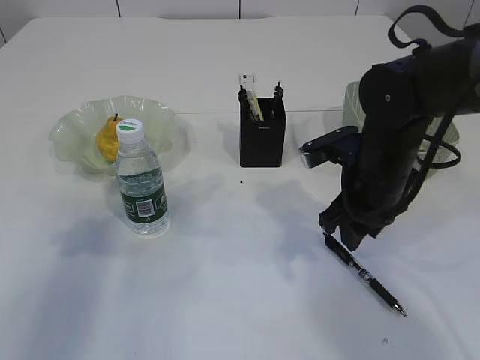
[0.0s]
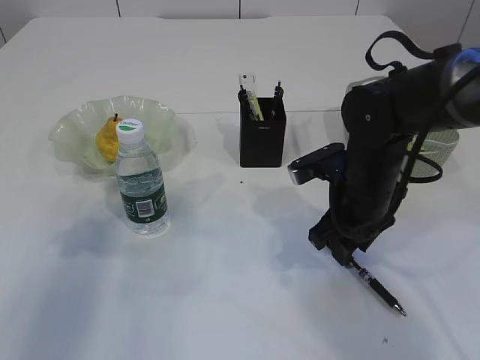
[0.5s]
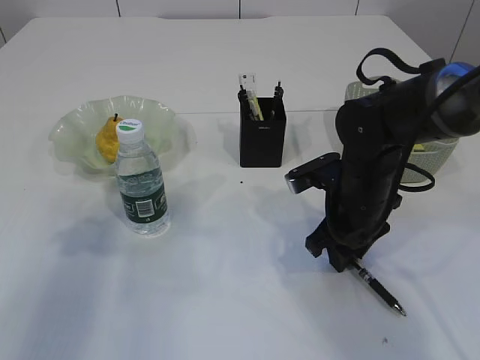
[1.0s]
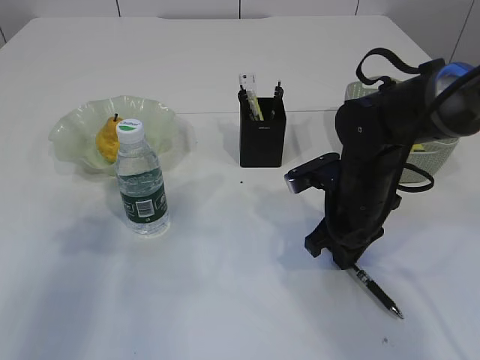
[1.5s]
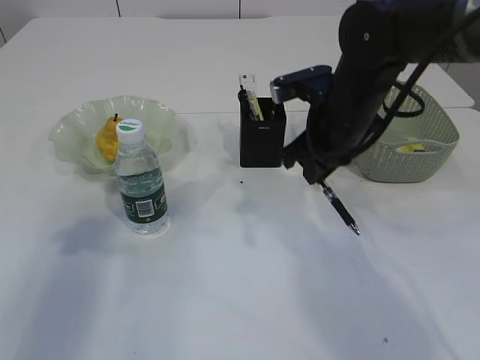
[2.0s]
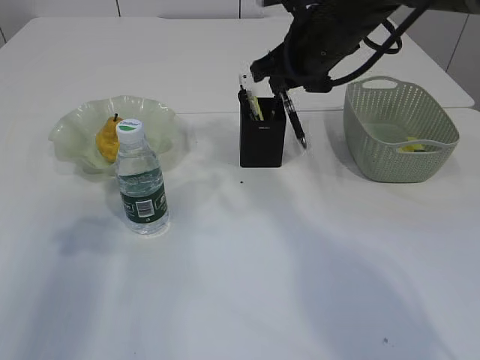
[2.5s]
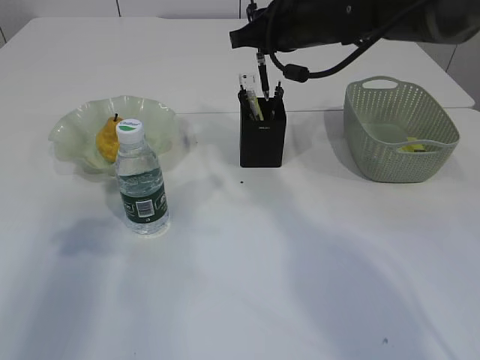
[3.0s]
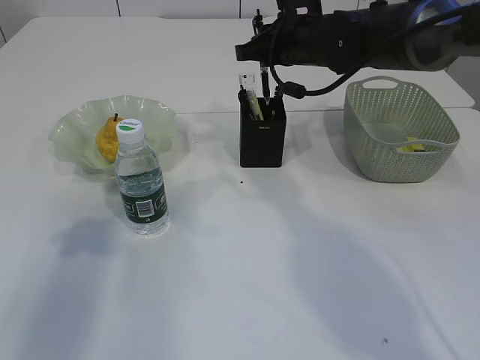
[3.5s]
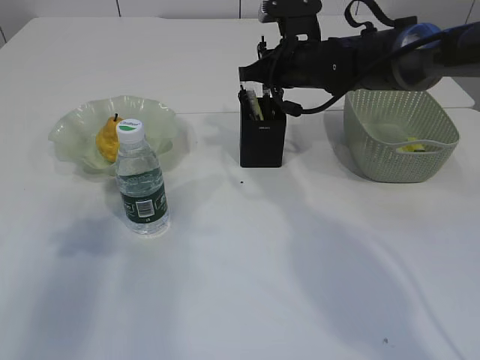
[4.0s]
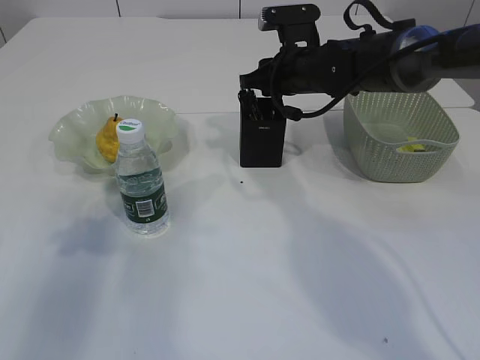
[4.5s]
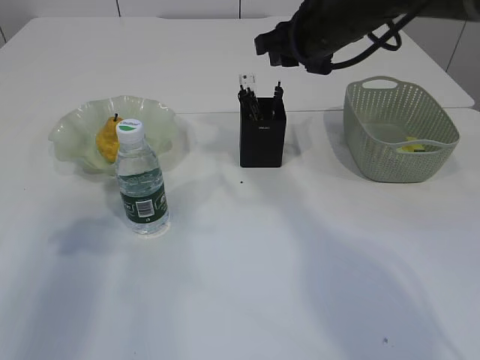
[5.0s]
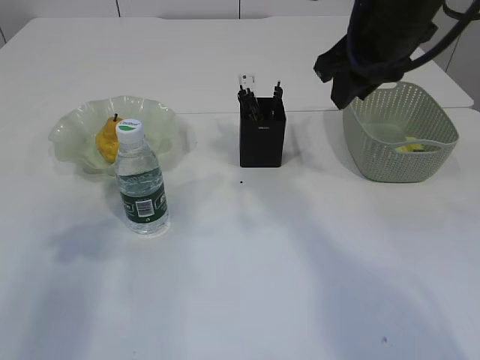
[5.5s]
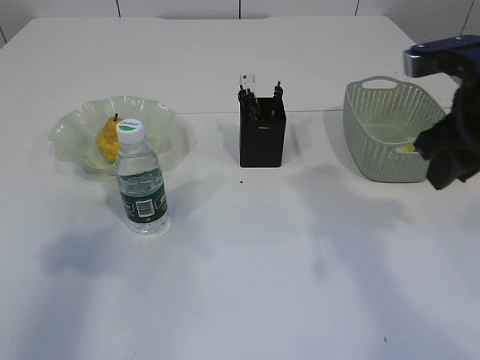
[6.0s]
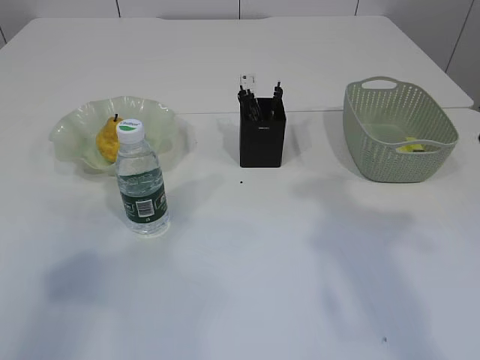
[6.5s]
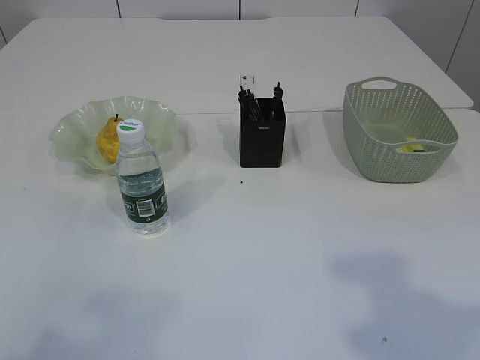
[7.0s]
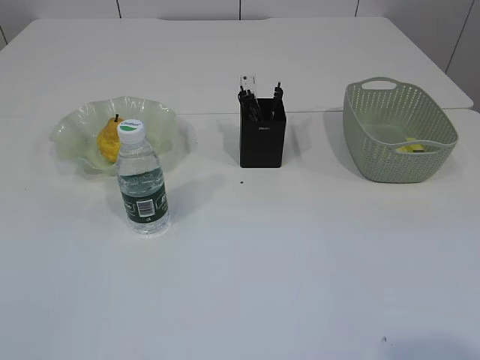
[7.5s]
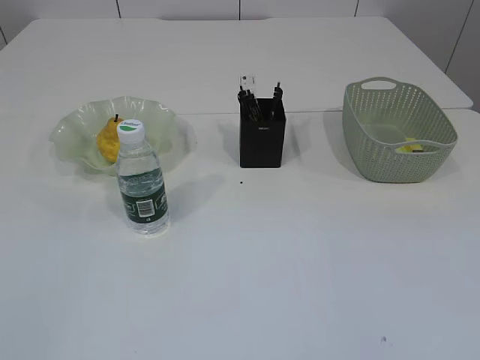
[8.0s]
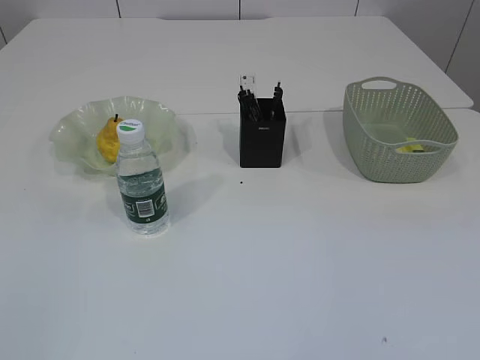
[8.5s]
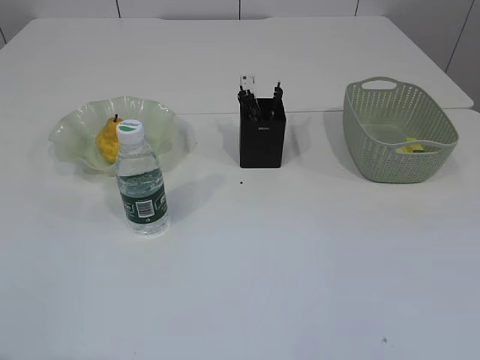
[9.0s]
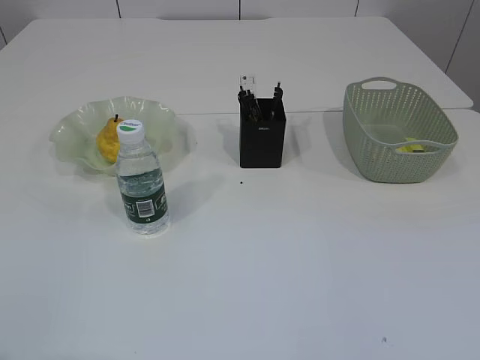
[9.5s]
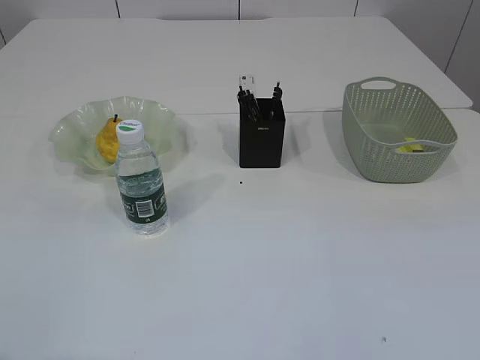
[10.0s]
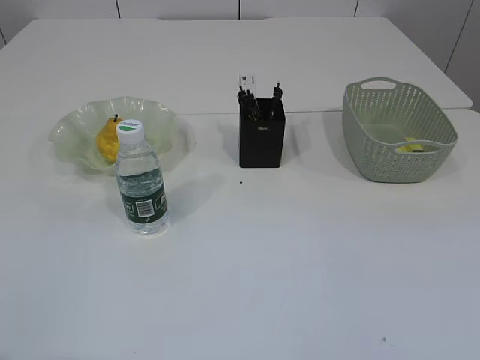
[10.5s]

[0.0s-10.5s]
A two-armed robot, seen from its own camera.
Step, 2.0s to 4.5s: Place the pen into the pen holder.
0.0s to 2.0s: The right gripper moves roughly 5 cm, and closes up.
2.0s to 4.0s: The right gripper heads forward, covering some 10 cm.
4.0s to 6.5s: The left gripper is displaced backward and upward by approximately 15 cm. The right gripper shifts about 30 cm backward, to the right and upward.
6.5s to 8.5s: The left gripper shifts some 15 cm backward and downward.
8.5s to 10.5s: Both grippers stay about where they are.
